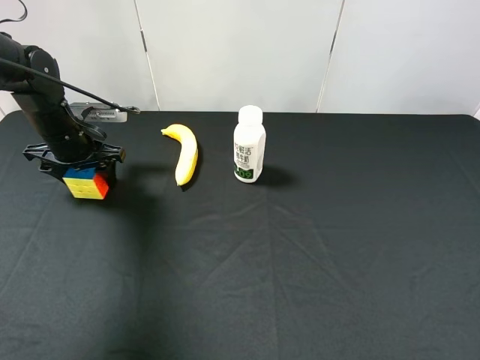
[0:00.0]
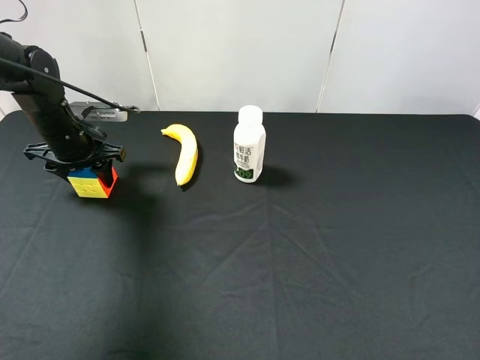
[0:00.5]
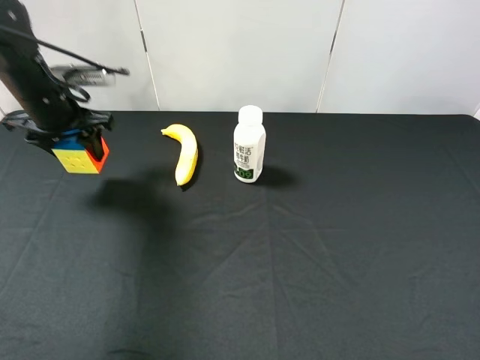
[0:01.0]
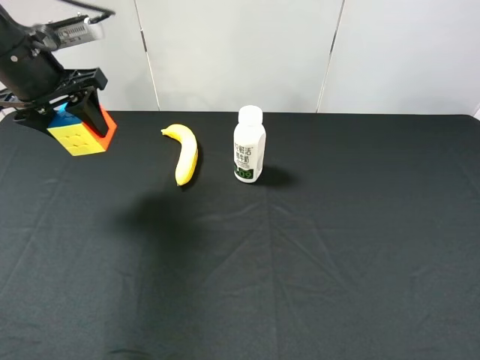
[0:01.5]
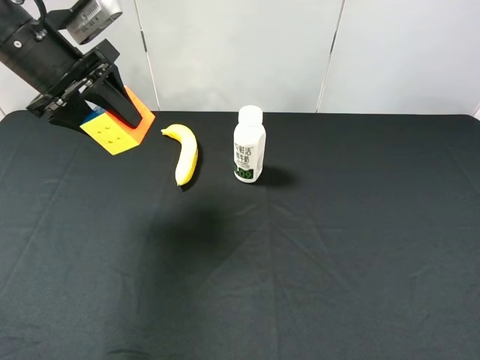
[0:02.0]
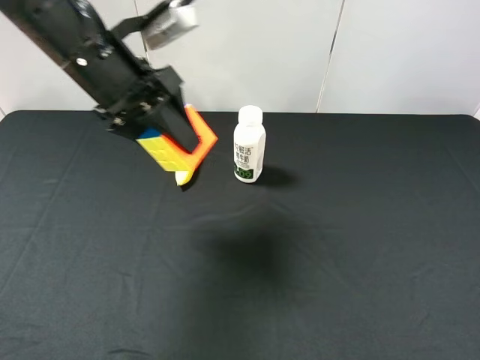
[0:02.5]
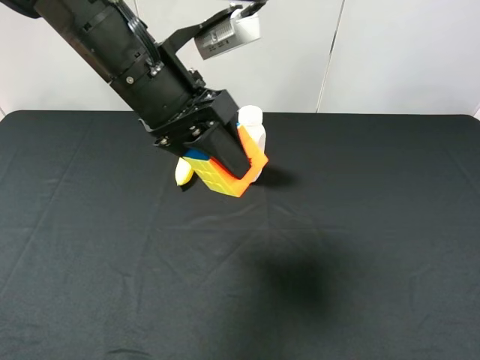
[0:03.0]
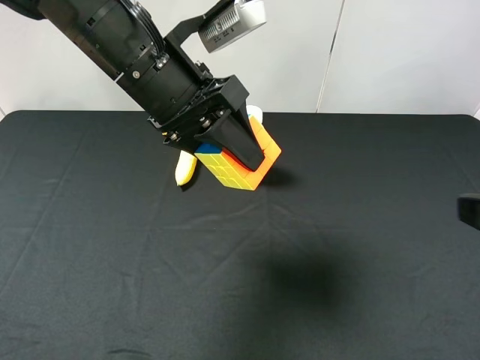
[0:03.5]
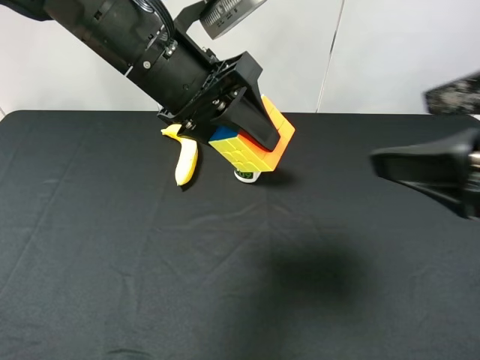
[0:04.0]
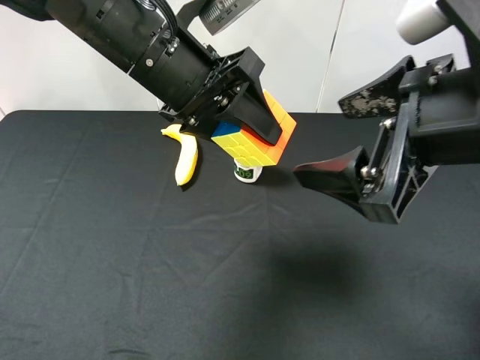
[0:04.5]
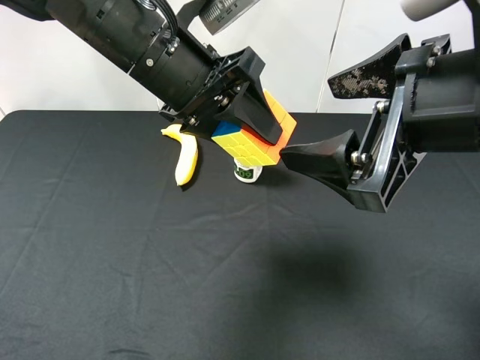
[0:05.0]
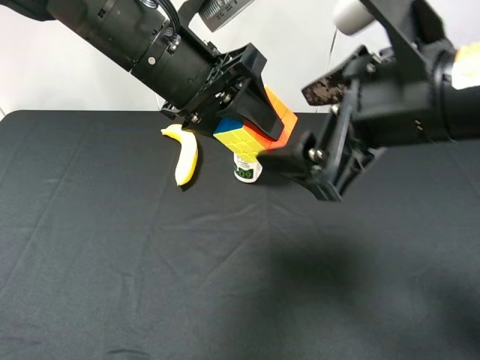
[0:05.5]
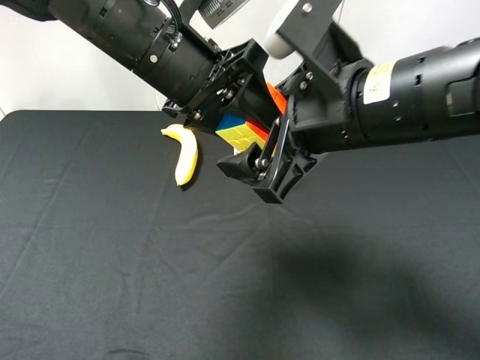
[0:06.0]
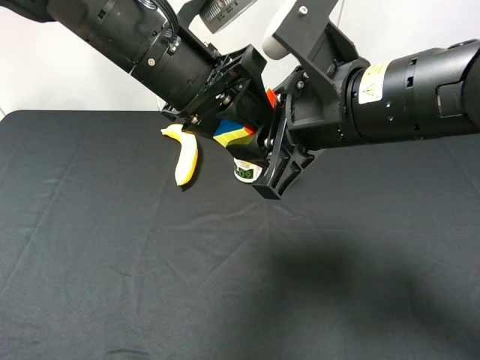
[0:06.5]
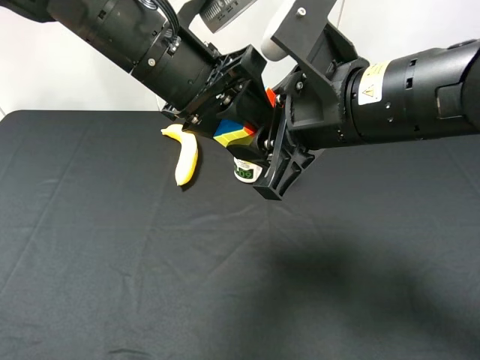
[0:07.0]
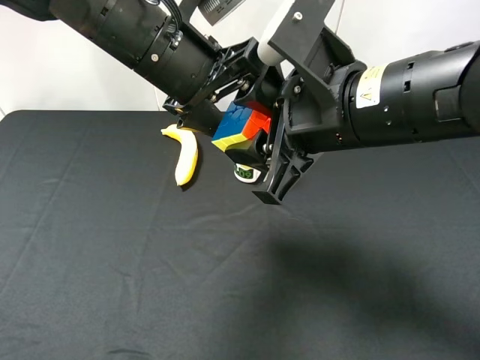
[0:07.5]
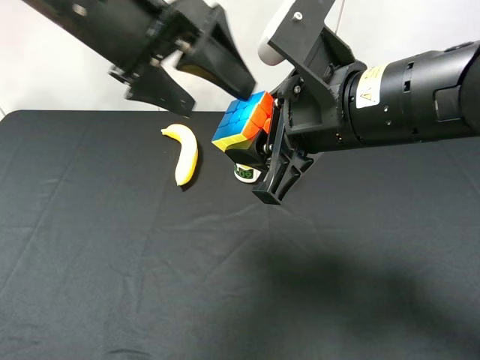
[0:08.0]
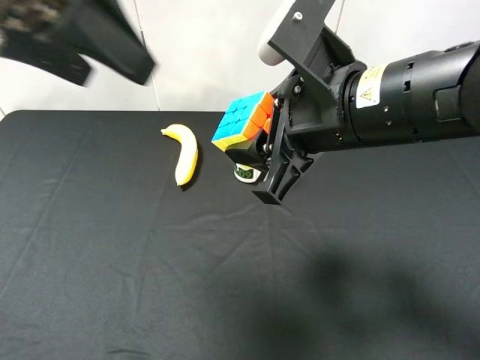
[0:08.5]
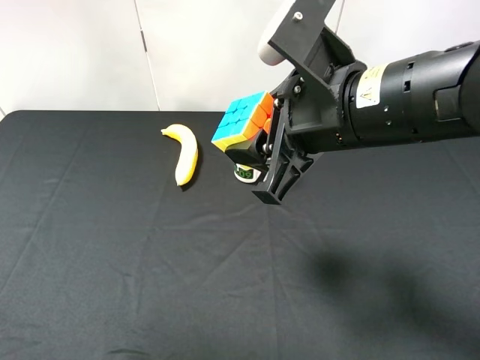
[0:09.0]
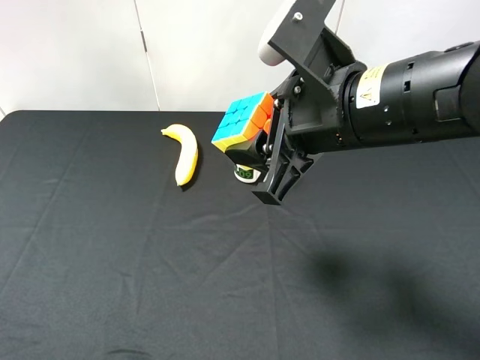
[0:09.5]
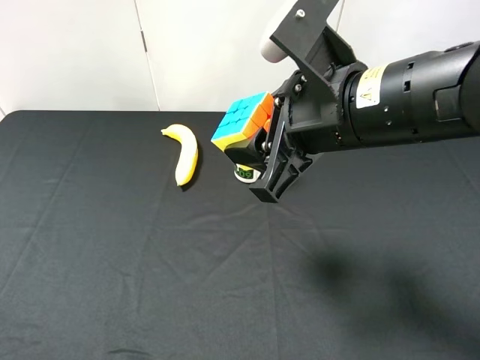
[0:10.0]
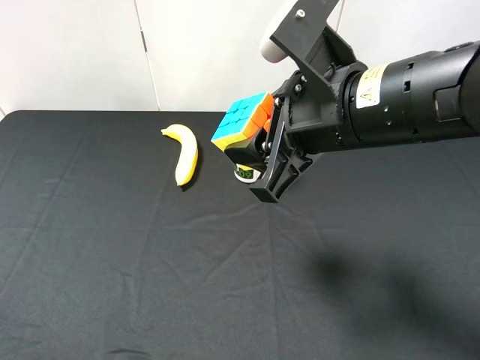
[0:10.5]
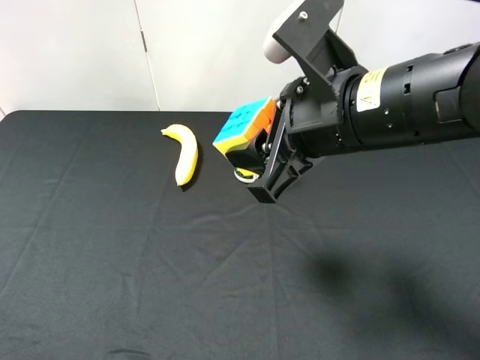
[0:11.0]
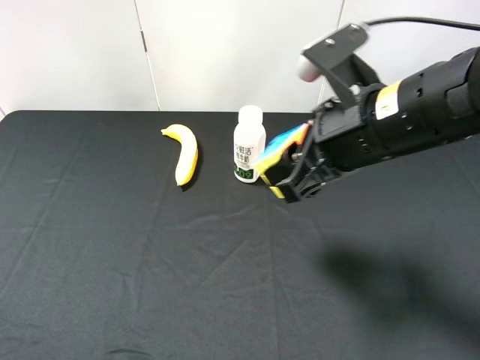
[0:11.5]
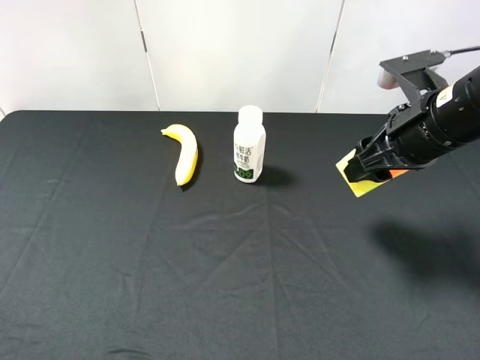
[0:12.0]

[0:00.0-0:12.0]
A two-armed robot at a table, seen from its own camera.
Task of the whole recording: use the left gripper to pick up the item and transfer it from the left gripper to the right gripper.
0:00.0 to 0:02.0: The left gripper shifts some 15 cm upward.
0:02.0 to 0:04.0: The right gripper is displaced forward and to the left by approximately 15 cm. Meanwhile the left gripper goes approximately 15 cm to the right.
0:04.0 to 0:06.0: The right gripper heads to the left and forward, covering approximately 15 cm.
0:06.0 to 0:08.0: The left gripper moves about 5 cm, and opens; the right gripper closes.
0:08.0 to 0:10.0: The left gripper moves backward and to the left, about 35 cm.
0:10.0 to 0:12.0: The right gripper heads to the right and forward, covering about 15 cm.

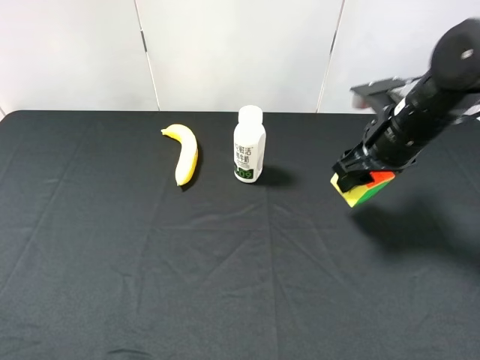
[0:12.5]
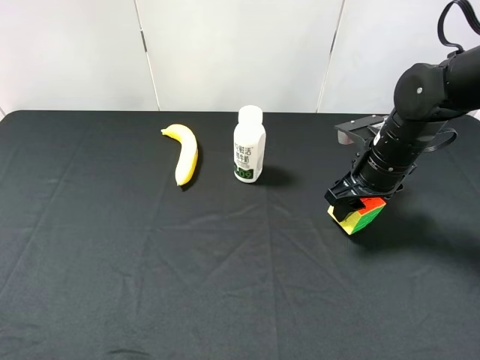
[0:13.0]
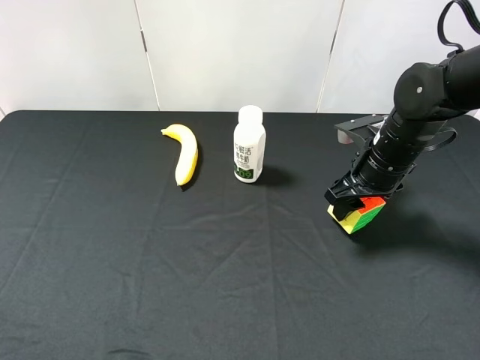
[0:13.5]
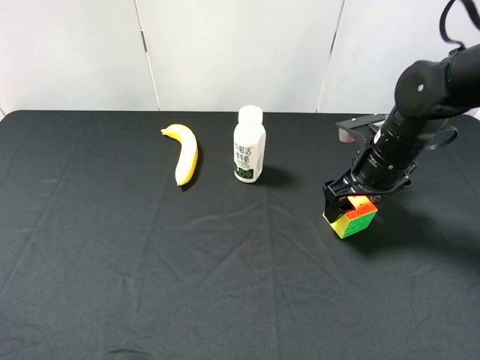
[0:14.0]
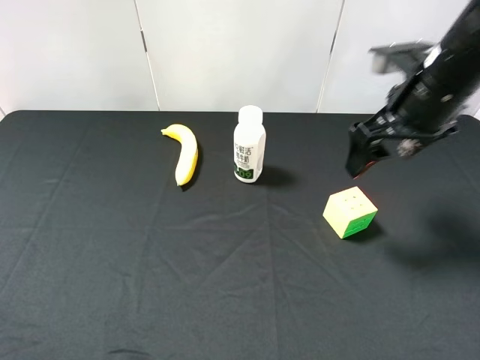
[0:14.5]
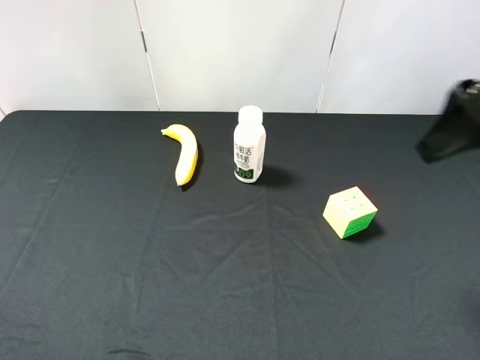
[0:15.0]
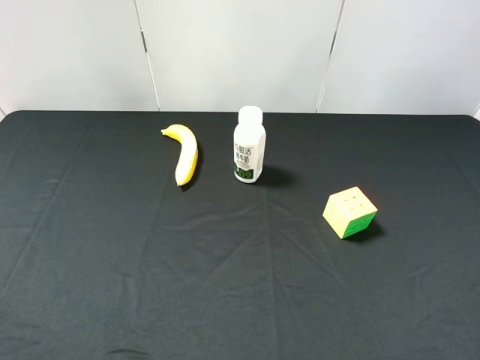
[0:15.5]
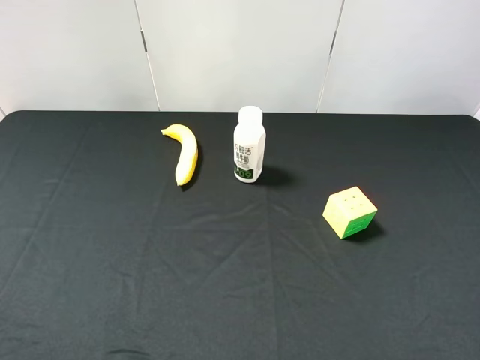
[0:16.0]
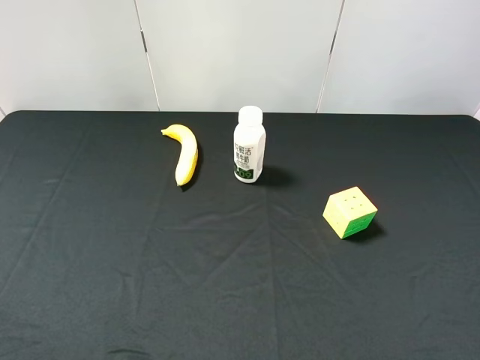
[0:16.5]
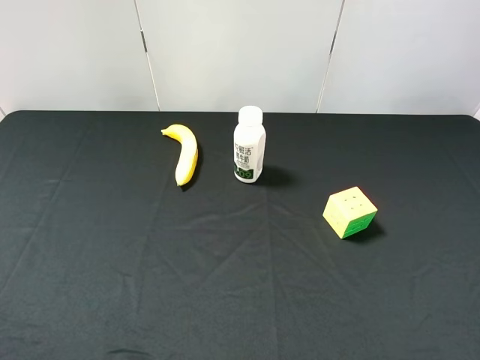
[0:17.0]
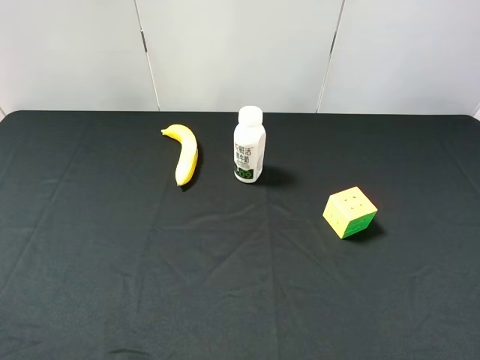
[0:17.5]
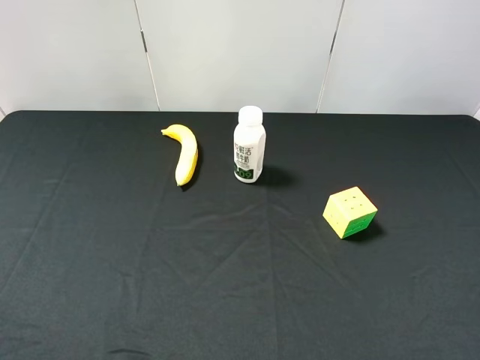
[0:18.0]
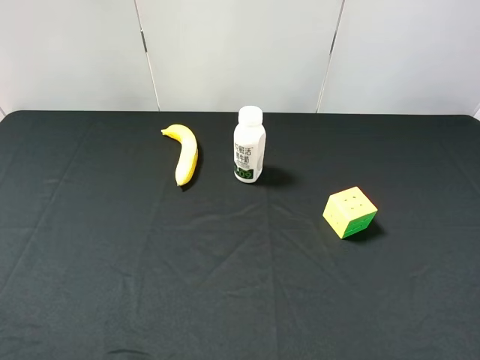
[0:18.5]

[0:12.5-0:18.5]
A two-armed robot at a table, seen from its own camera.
Task of the whole recording: use the left gripper to pick up the item and transfer it from the left gripper to the right gripper.
0:12.5 to 0:14.5: The right gripper is displaced upward by roughly 10 cm, and opens.
0:14.5 to 0:16.5: The right gripper heads backward, covering about 25 cm.

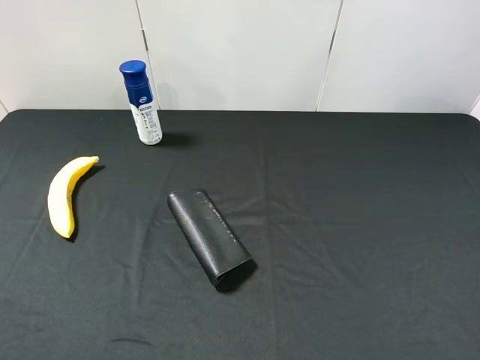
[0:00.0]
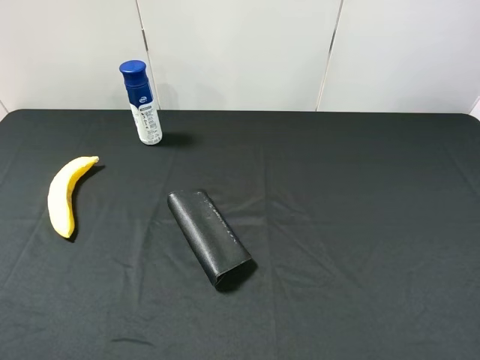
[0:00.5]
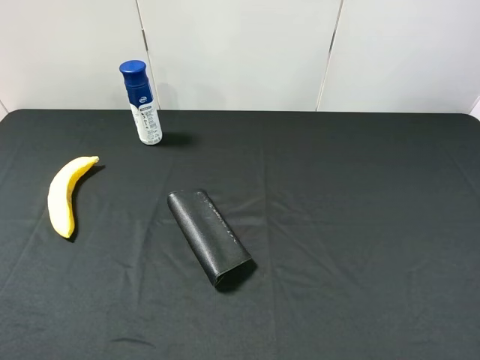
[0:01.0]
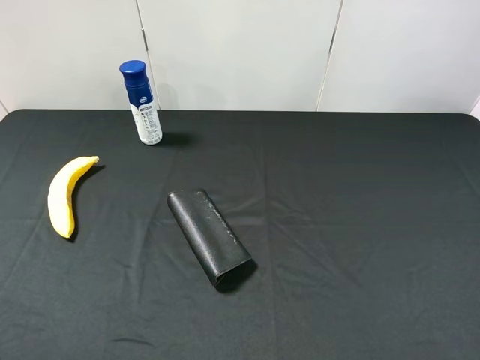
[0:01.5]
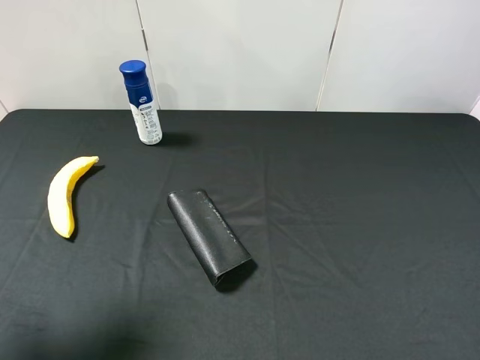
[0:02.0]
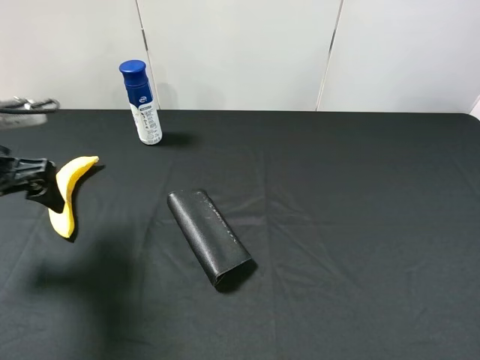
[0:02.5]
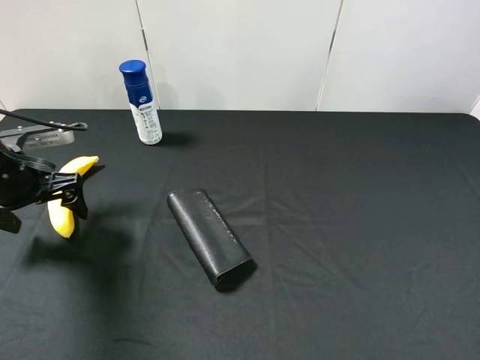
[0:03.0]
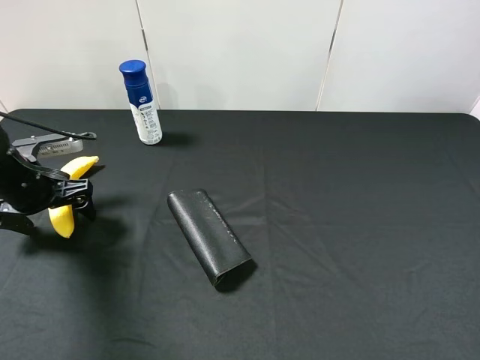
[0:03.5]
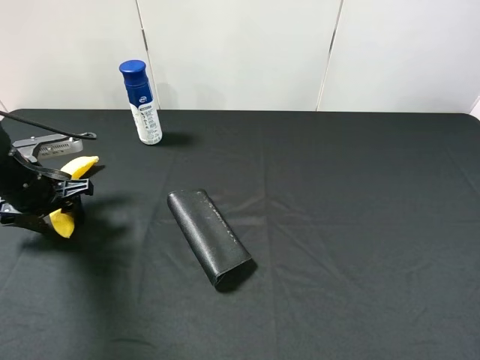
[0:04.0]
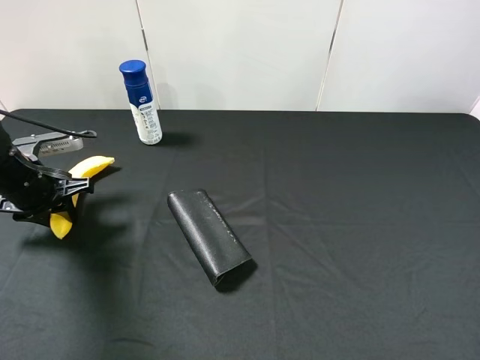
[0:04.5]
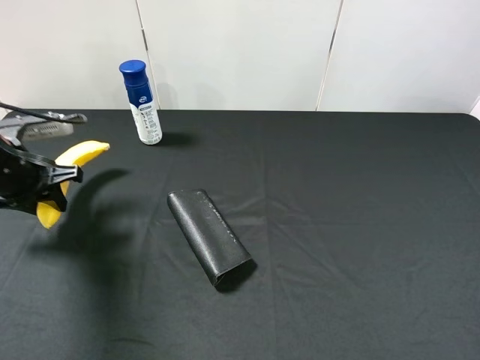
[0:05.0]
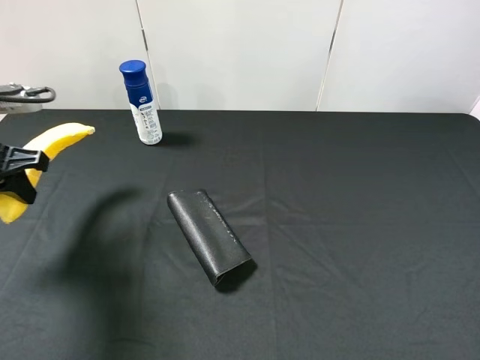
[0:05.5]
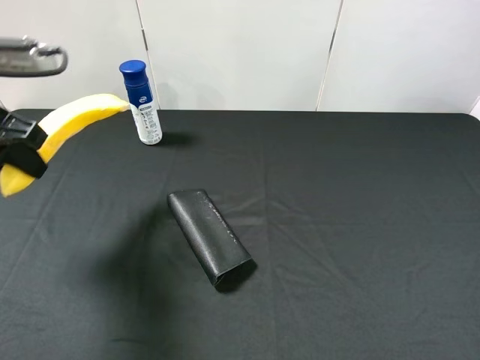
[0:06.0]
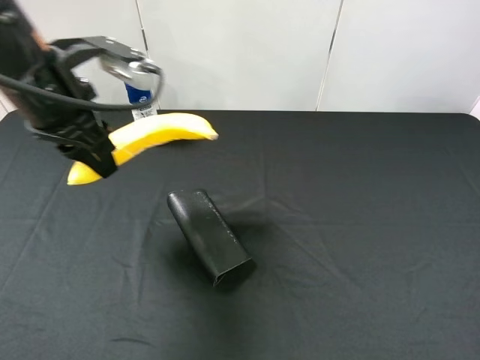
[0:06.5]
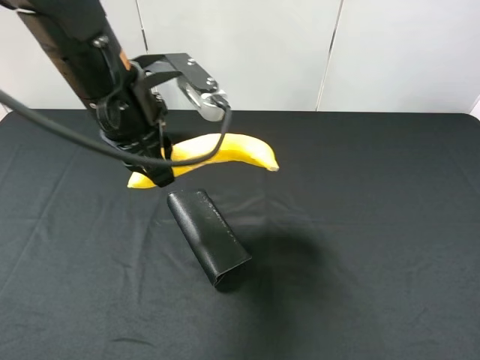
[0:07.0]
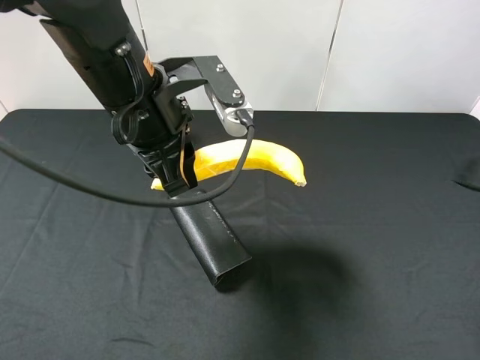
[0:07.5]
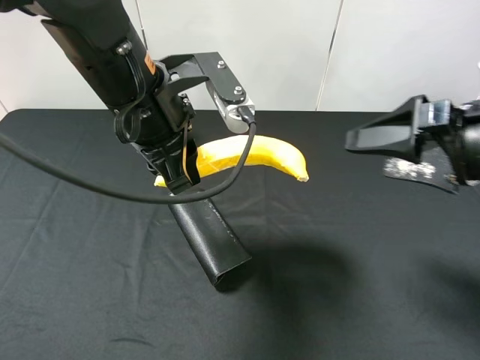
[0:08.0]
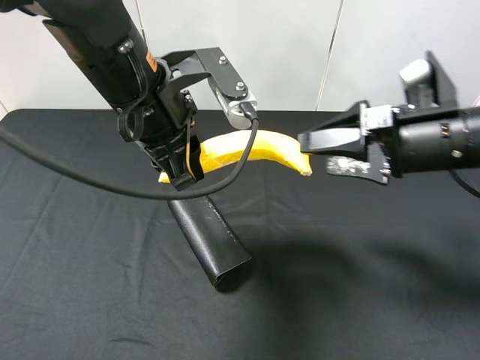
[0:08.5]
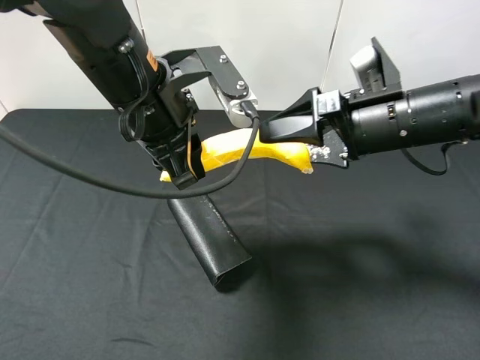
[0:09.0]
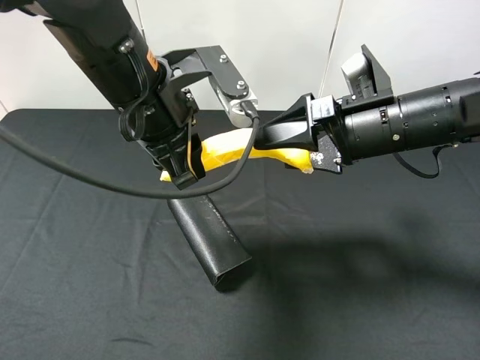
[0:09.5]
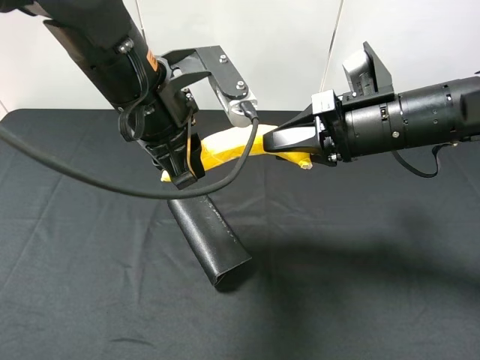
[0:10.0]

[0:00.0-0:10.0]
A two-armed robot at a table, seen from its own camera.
Task of the whole recording: use the left gripper to pick up the item and transfer it from the left gripper to the right gripper.
0:00.0 to 0:02.0: The left gripper travels forward by roughly 15 cm.
0:02.0 to 0:04.0: The left gripper shifts some 25 cm downward and forward, and closes its fingers.
0:04.0 to 0:06.0: The left gripper travels upward by approximately 15 cm.
0:06.0 to 0:08.0: The right gripper goes approximately 20 cm forward; the left gripper heads to the right, covering approximately 20 cm.
0:08.0 to 0:10.0: The right gripper shifts some 10 cm to the left and forward, and closes.
